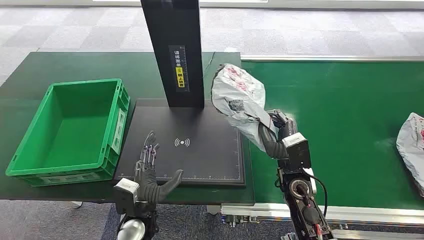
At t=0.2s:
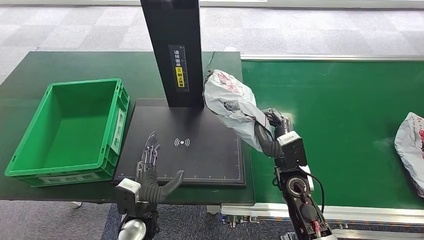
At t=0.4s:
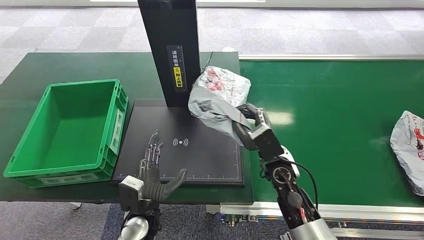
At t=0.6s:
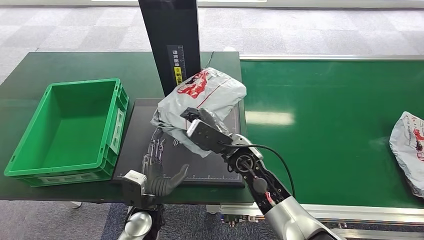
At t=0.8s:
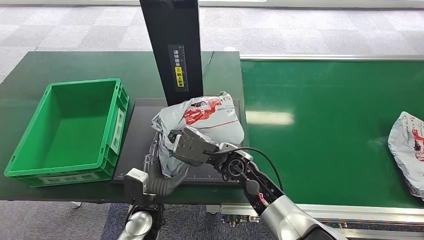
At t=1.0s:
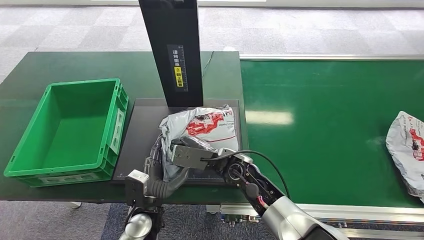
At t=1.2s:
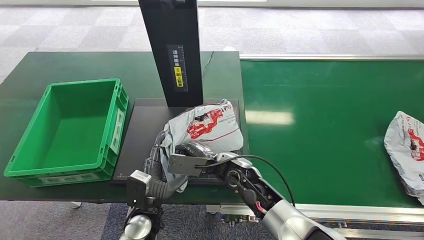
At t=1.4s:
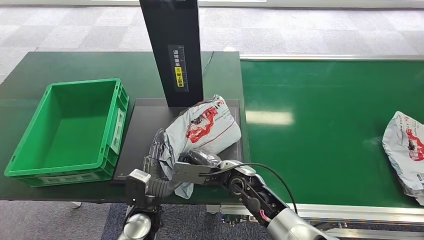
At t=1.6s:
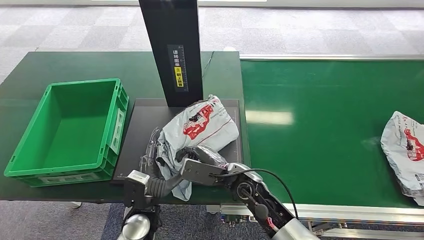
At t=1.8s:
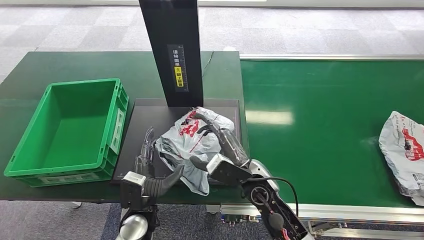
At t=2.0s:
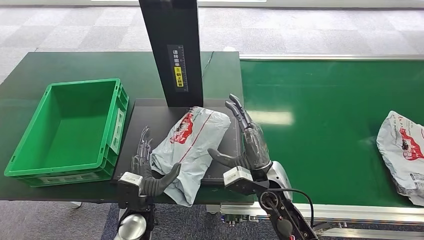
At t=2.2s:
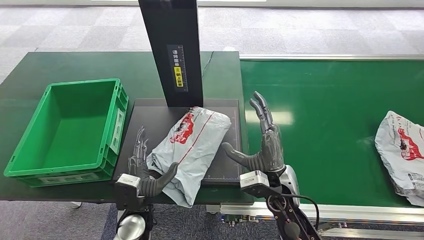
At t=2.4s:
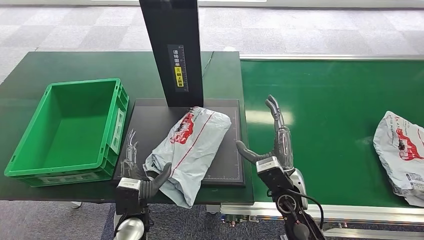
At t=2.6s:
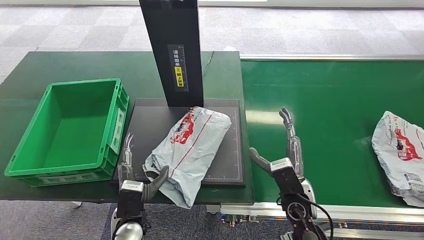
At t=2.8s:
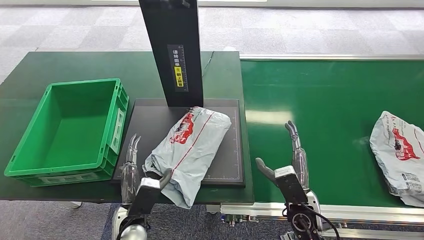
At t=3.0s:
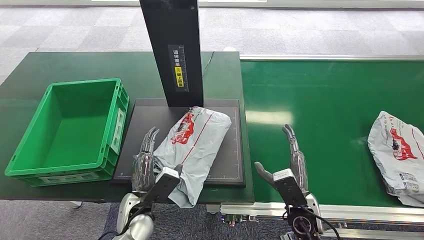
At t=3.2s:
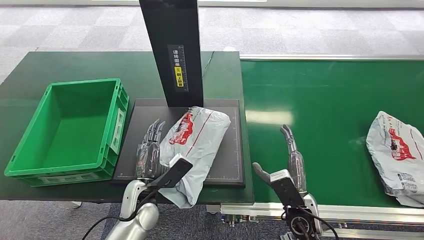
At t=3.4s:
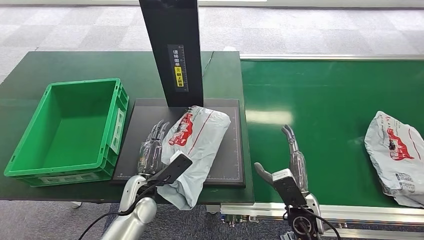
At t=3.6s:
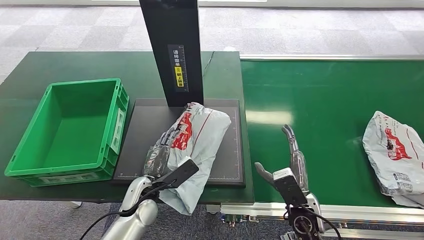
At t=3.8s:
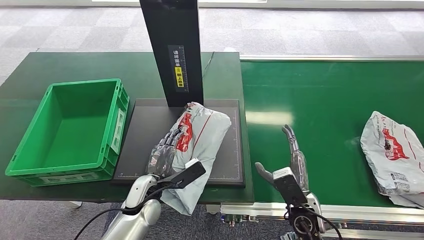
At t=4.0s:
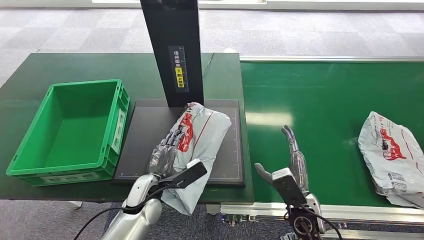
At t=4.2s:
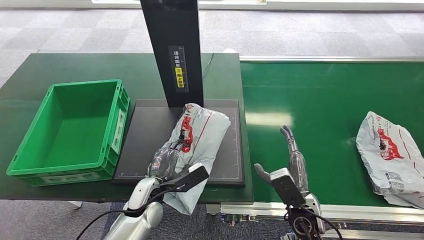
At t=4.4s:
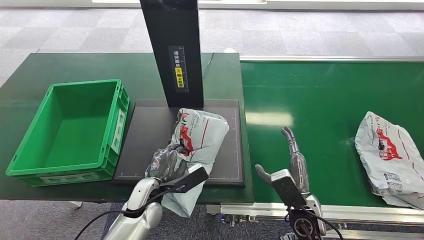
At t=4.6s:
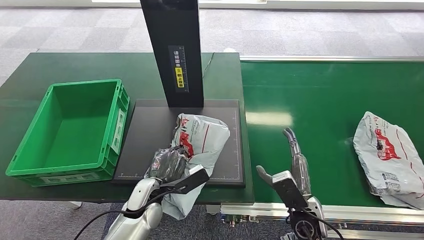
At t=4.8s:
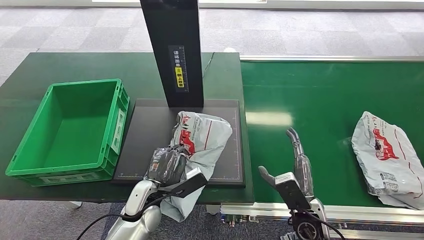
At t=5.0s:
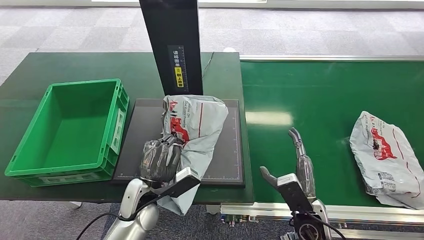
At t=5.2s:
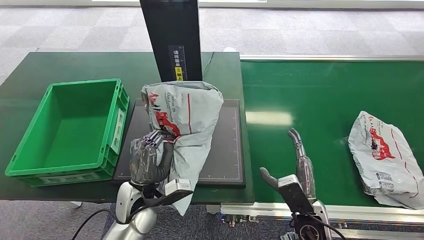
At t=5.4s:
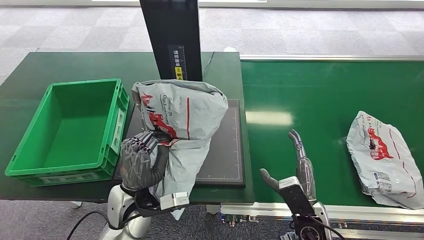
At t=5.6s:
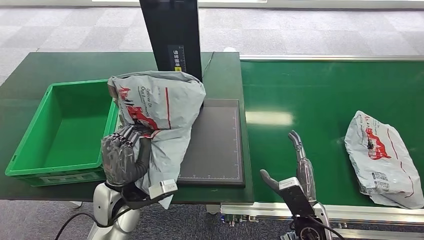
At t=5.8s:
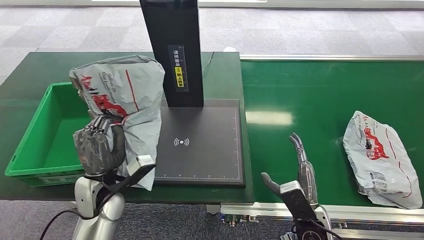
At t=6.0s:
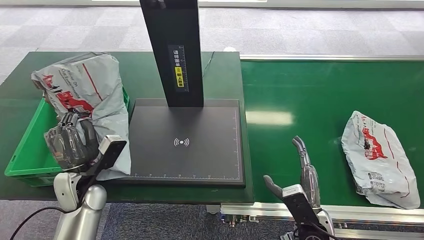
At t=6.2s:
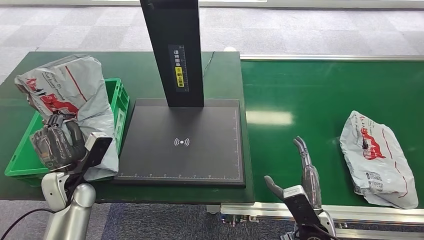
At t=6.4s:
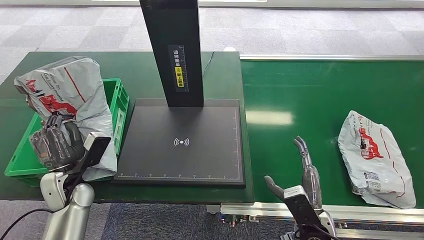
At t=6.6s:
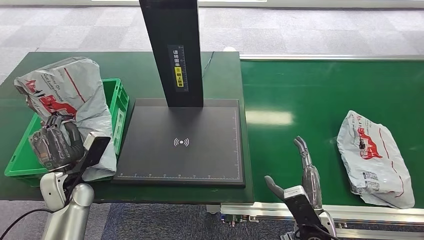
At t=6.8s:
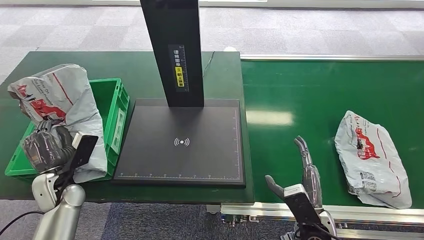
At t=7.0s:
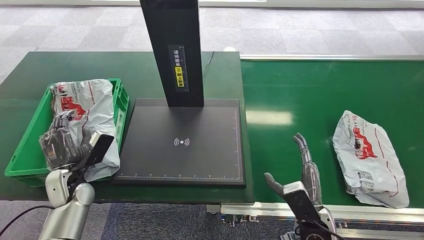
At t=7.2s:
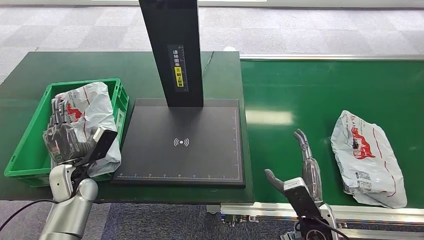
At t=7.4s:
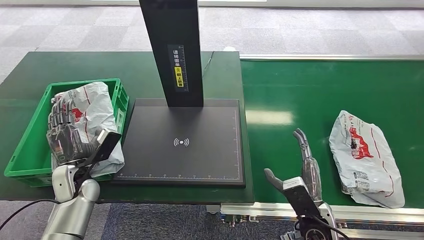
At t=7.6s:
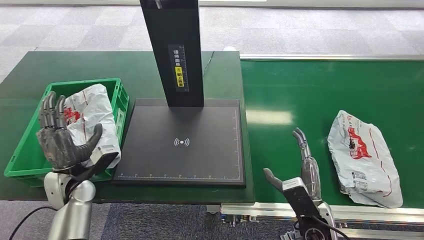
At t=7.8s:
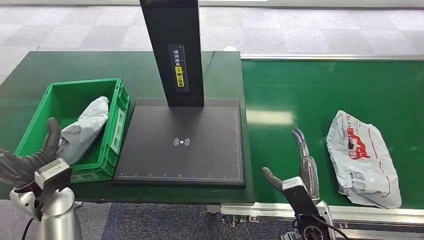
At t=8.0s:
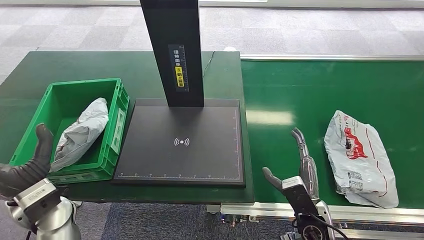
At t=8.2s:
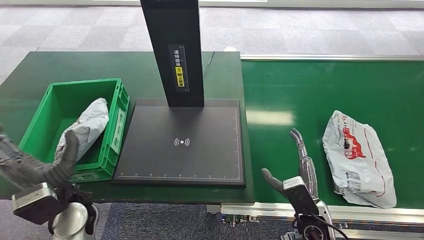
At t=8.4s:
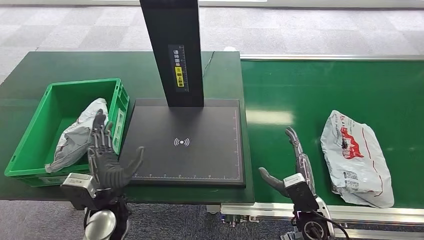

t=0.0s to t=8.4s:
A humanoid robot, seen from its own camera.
t=1.4s to t=2.8s: The right hand shifts roughly 15 cm to the right and backward.
t=2.8s to t=4.2s: The left hand is displaced forward by roughly 5 cm.
t=7.0s to t=8.4s: The left hand moves to the right and backward, approximately 15 cm.

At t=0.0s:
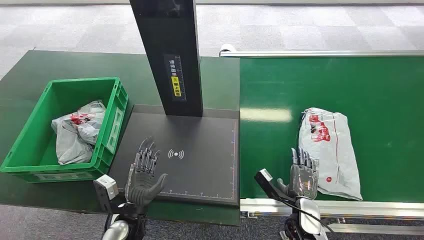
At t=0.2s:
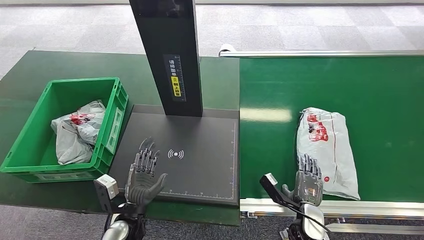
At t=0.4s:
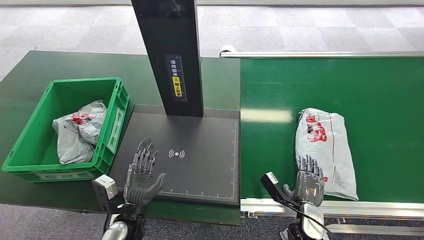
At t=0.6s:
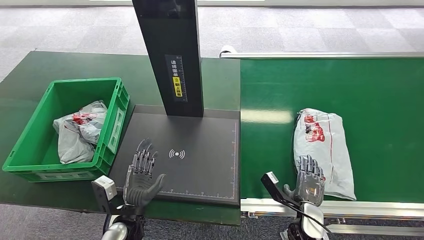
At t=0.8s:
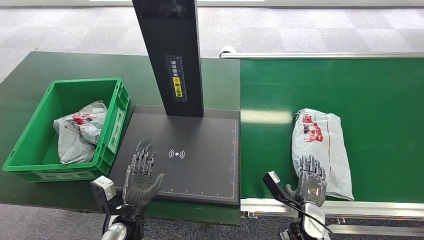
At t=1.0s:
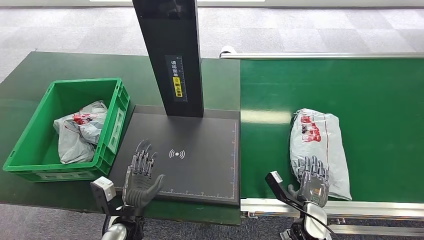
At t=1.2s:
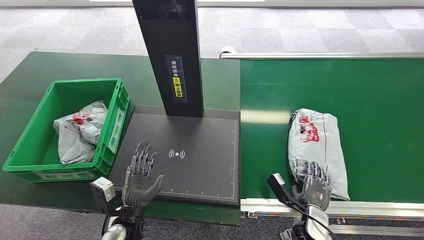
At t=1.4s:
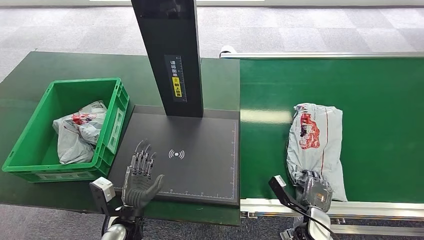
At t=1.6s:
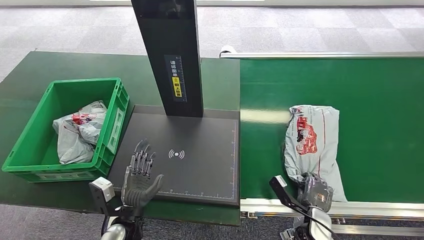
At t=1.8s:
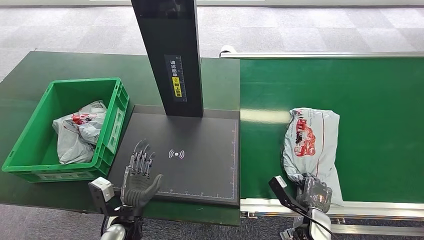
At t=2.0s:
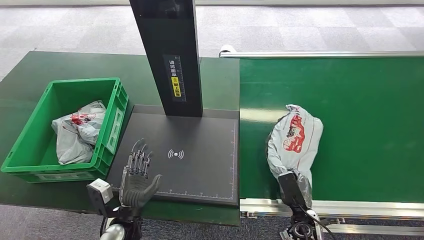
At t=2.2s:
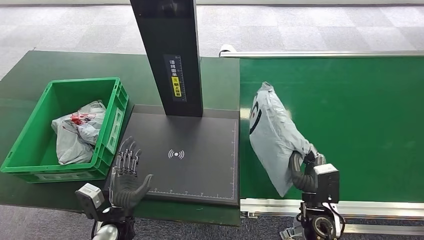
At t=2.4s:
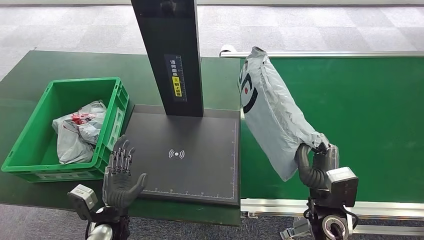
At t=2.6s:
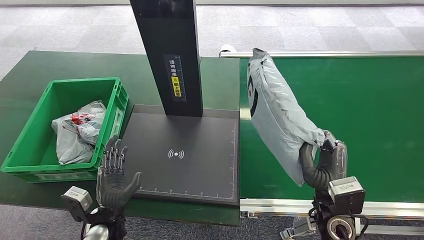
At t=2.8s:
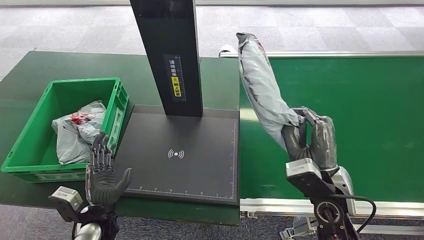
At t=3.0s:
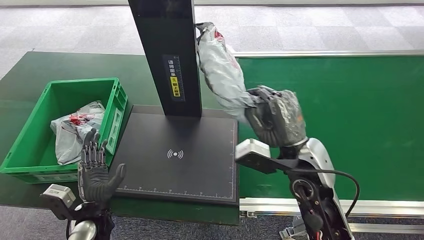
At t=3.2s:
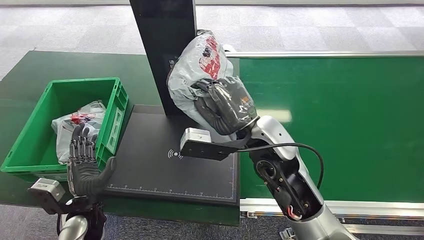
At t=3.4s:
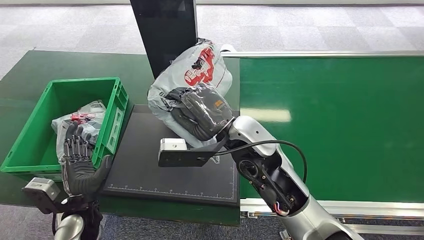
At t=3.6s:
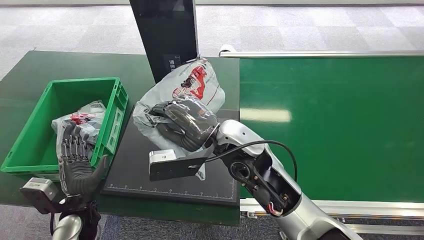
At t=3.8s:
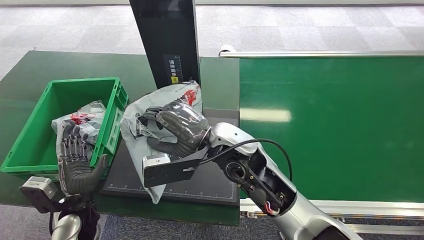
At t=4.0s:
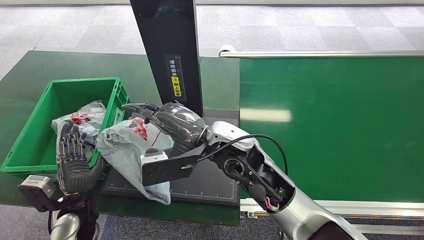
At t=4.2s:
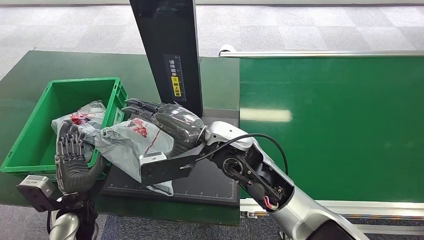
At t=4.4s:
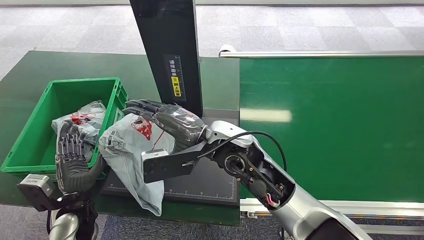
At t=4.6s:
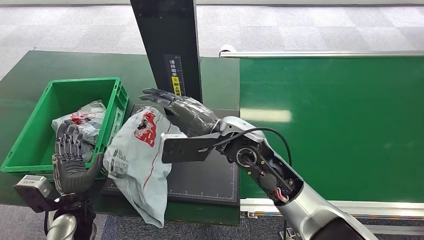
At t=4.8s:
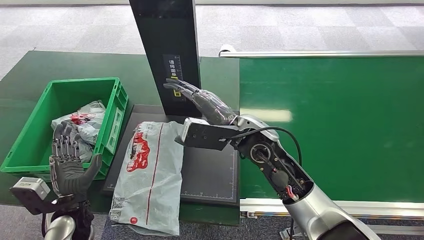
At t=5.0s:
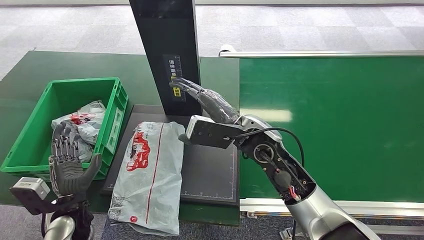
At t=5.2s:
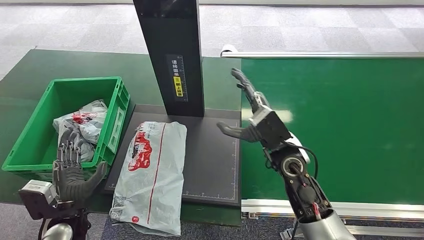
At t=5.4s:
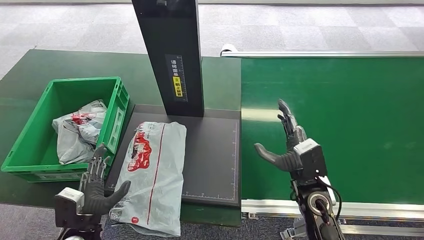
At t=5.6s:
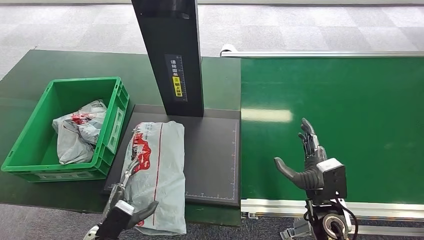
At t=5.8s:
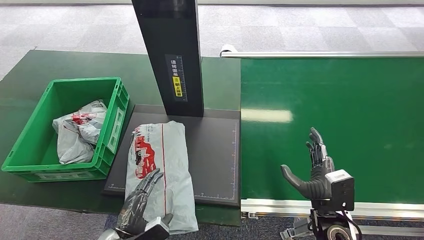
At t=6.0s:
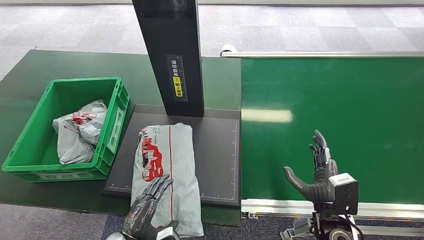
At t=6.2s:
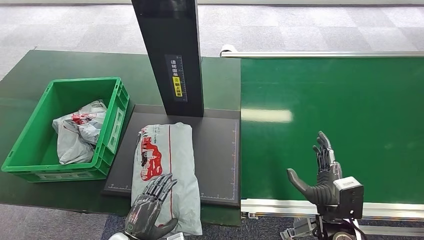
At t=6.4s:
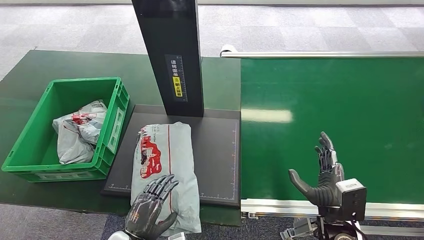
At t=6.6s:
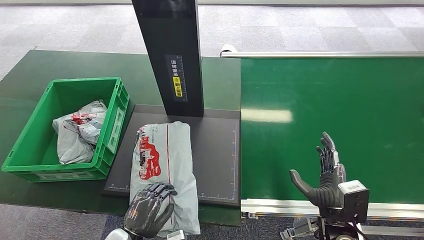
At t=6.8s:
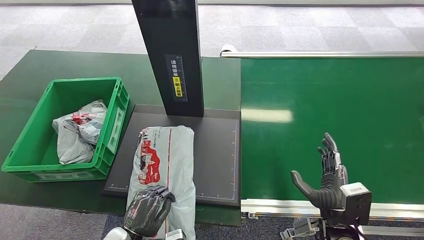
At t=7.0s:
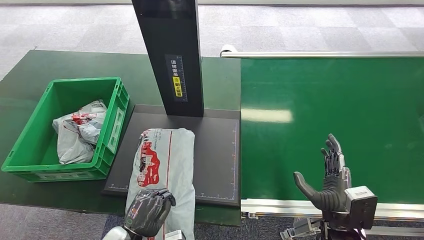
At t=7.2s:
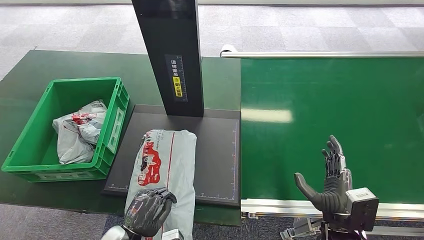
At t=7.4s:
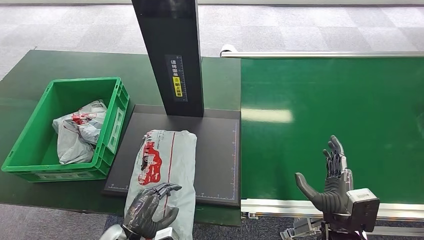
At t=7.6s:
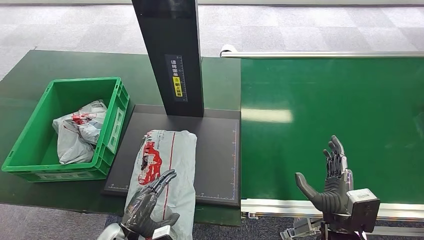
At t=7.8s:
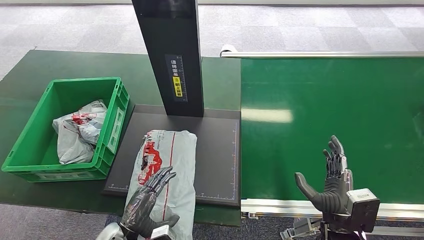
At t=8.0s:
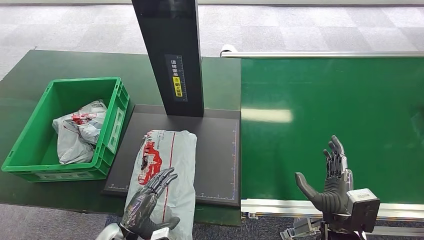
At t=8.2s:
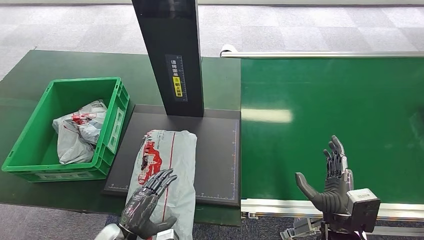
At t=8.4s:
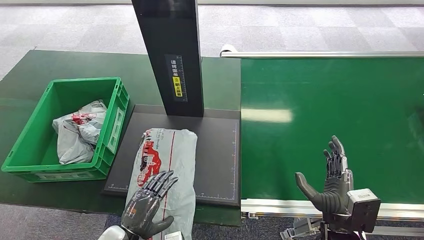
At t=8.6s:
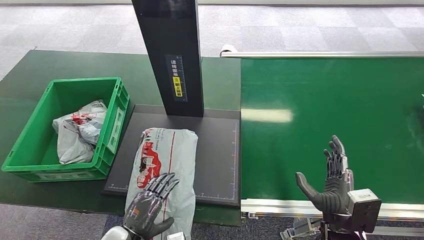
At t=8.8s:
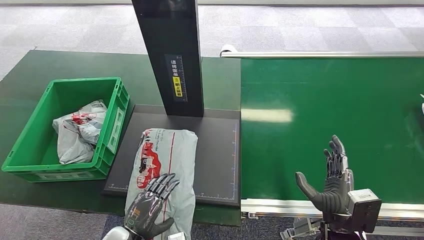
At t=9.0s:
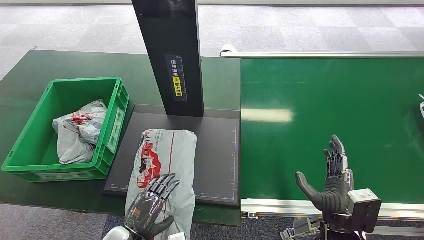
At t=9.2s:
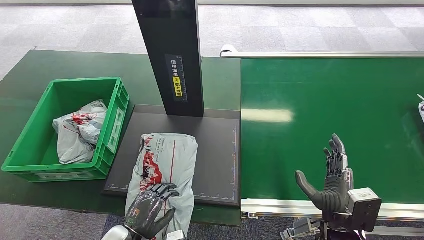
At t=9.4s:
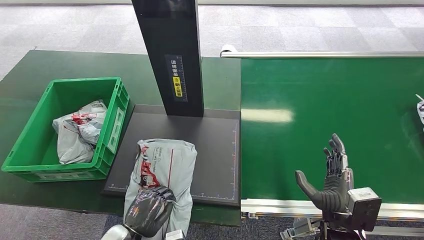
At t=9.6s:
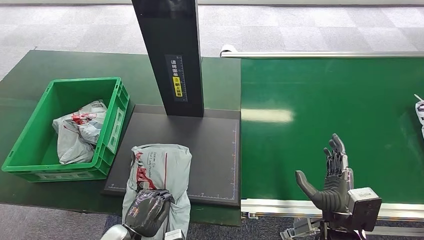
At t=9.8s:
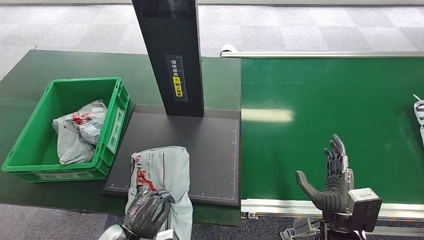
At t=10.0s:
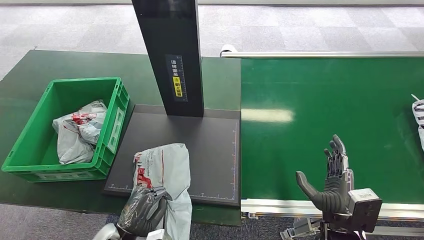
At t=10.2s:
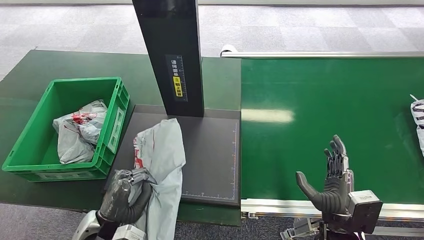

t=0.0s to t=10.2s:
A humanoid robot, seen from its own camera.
Step, t=0.0s to t=2.8s: Pick up the package from the conveyor belt.
Step, t=3.0s to t=4.8s: Place the package onto the inbound machine.
t=7.2s to t=8.8s: The hands move only a little.
t=8.8s to t=10.2s: The left hand shifts about 5 cm upward.
